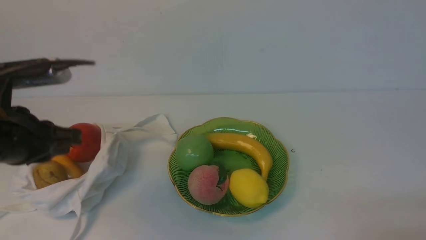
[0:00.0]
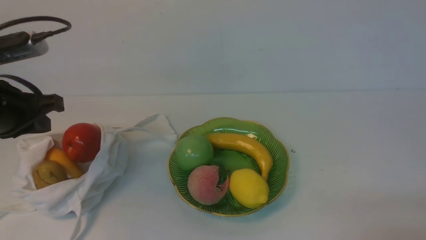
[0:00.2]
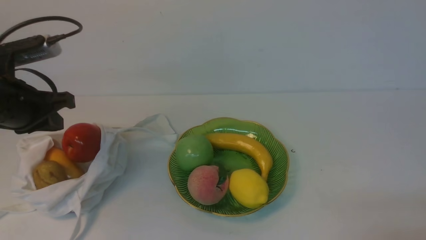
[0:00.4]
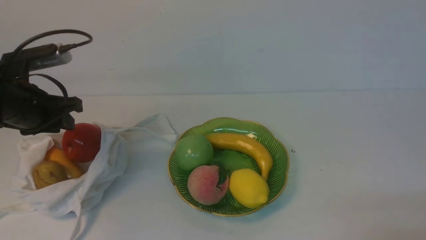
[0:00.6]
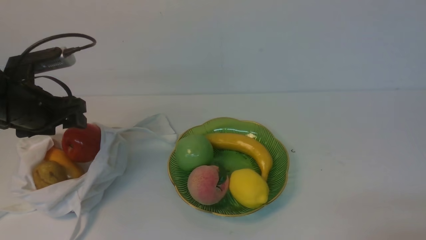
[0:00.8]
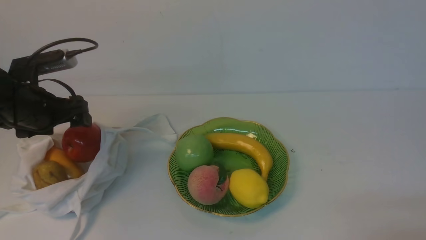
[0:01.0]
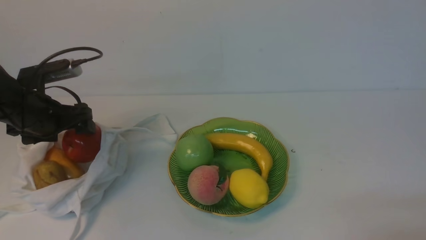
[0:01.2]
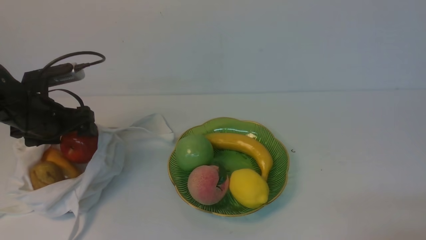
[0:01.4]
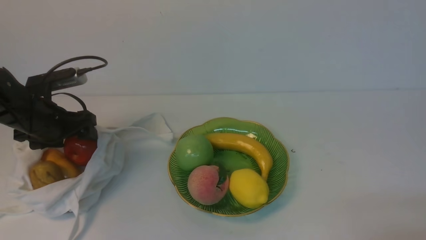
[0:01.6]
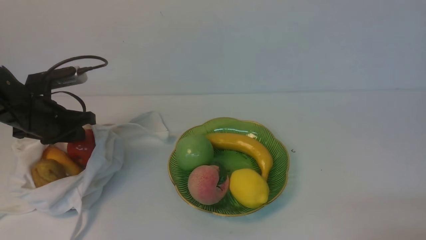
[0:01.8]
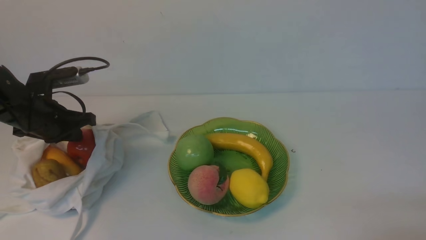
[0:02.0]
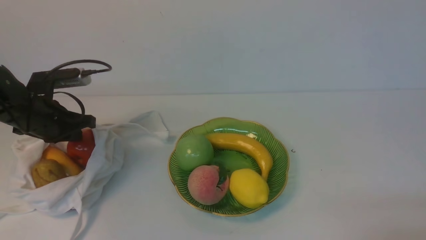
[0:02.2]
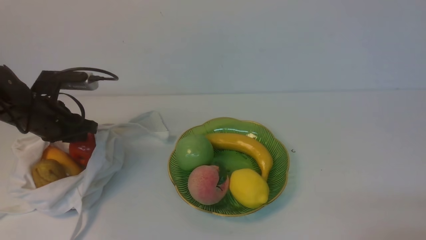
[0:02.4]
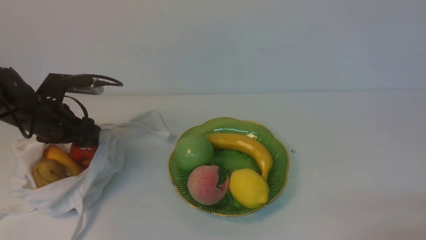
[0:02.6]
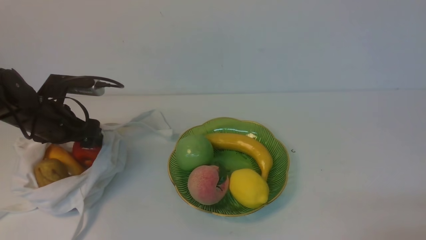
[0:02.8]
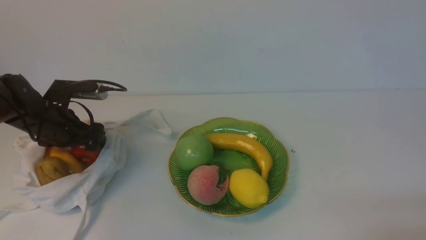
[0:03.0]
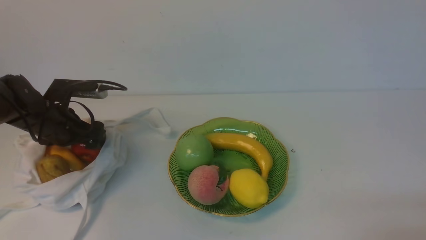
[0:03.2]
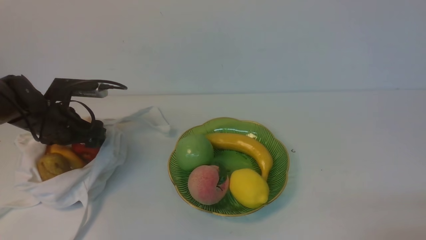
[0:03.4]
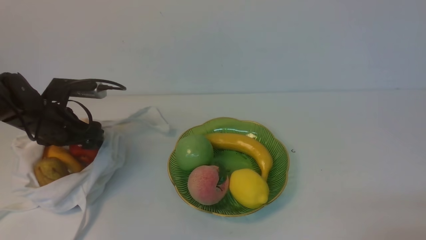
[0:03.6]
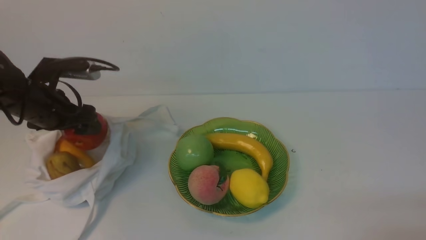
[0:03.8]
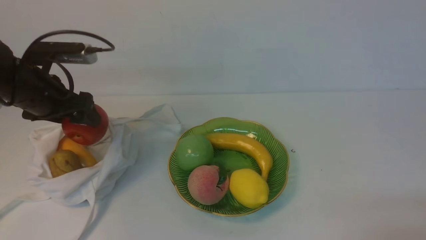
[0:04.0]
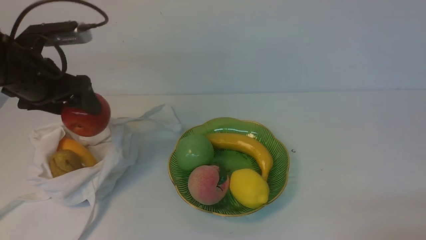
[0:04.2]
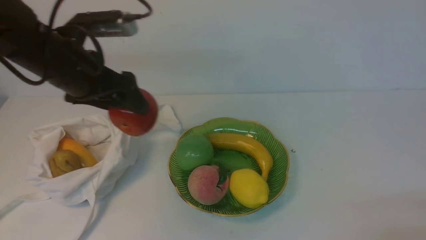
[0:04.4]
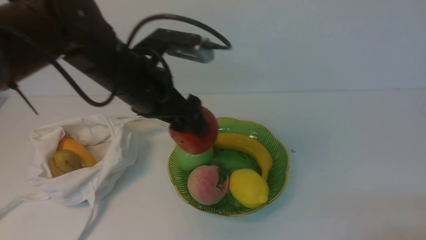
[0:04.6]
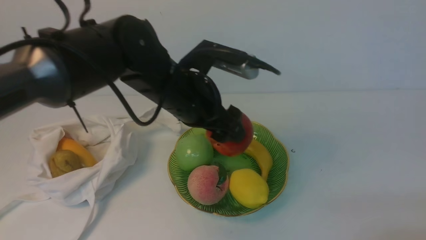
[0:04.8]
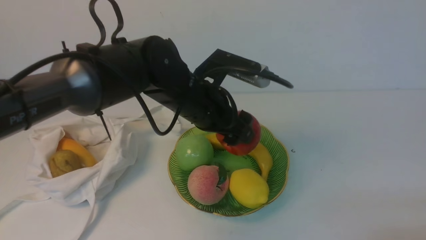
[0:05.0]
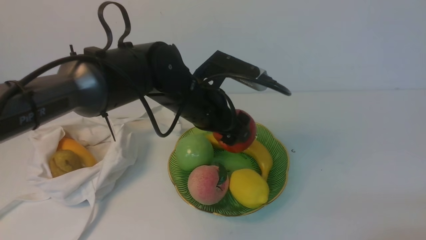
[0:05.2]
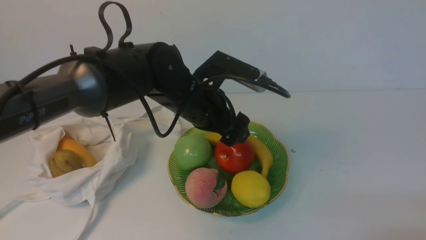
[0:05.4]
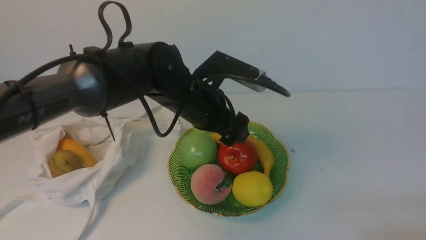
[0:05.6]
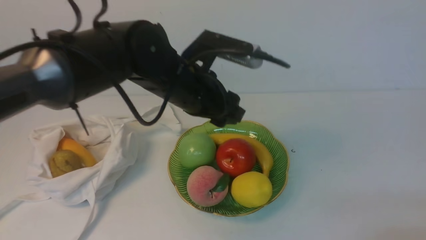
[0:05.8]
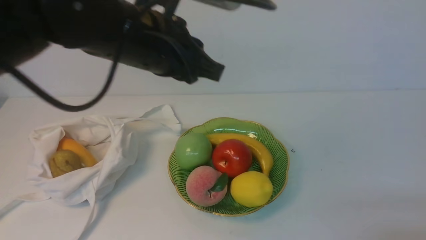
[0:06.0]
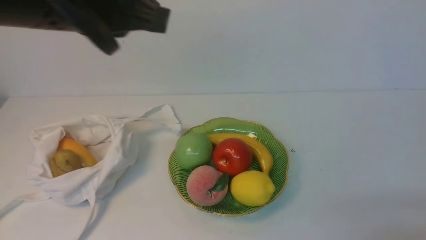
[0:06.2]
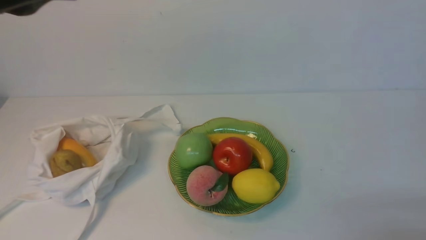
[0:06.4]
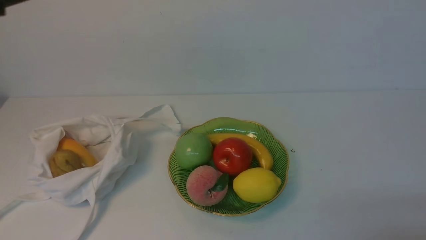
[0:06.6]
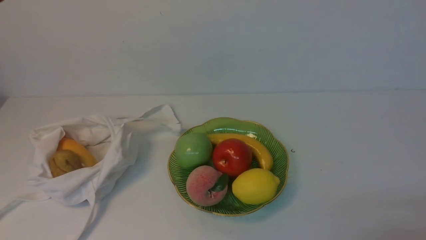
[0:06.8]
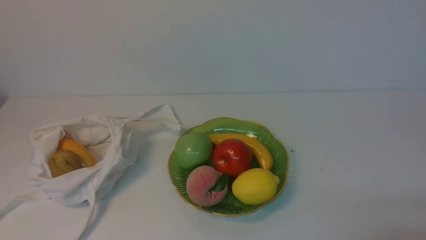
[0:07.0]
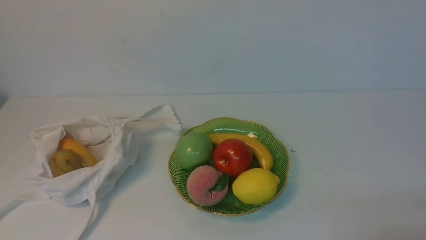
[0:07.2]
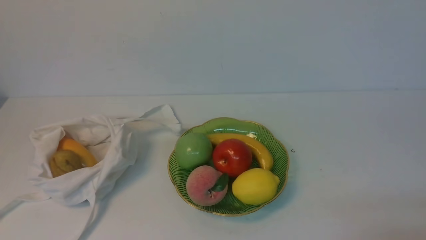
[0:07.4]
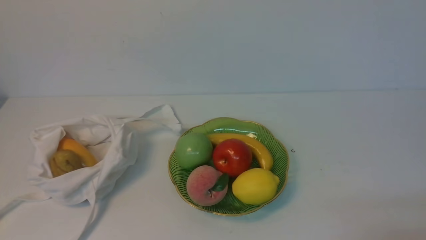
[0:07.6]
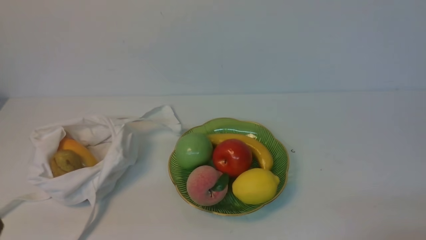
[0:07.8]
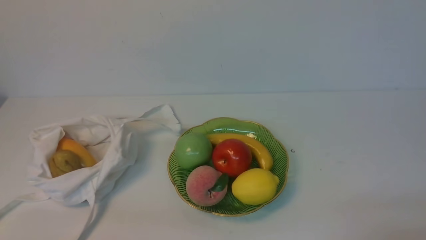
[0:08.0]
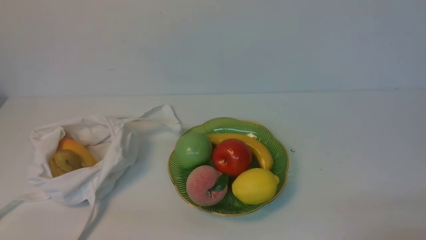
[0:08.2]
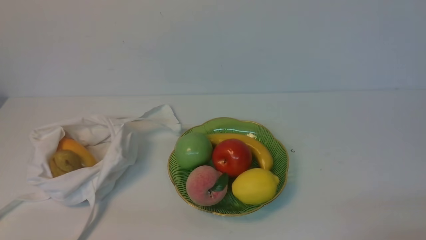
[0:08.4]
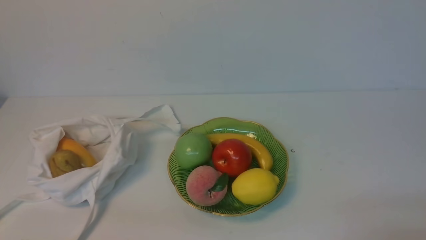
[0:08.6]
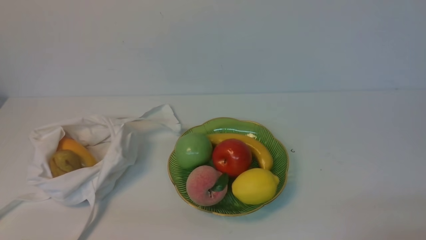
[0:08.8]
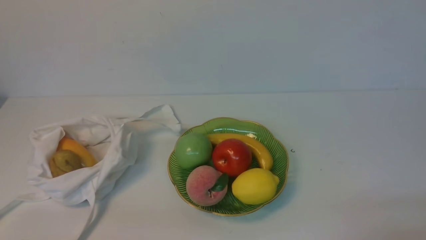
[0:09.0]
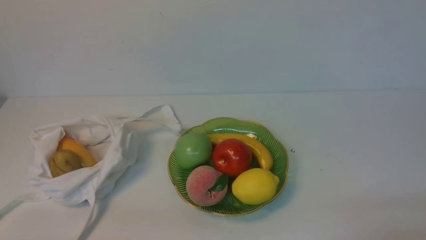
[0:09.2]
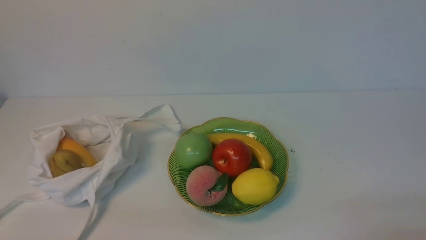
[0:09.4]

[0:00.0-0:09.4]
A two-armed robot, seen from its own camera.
Step, 0:00.0 to 0:03.8: use the left arm to grab an apple from the bag.
Step, 0:04.0 to 0:05.6: use the left arm to put the apple into the empty plate on the right.
0:00.0 to 0:01.6: The left gripper heads forward and downward, covering some 20 cm, and opens up.
0:01.6 to 0:03.2: The left gripper closes, then reopens.
0:03.2 to 0:04.8: The left gripper shifts roughly 25 cm to the right and upward.
0:04.8 to 0:06.2: The left gripper shifts about 15 cm upward and backward, and closes its fingers.
0:06.2 to 0:07.8: The left gripper travels backward, downward and to the left by roughly 30 cm.
